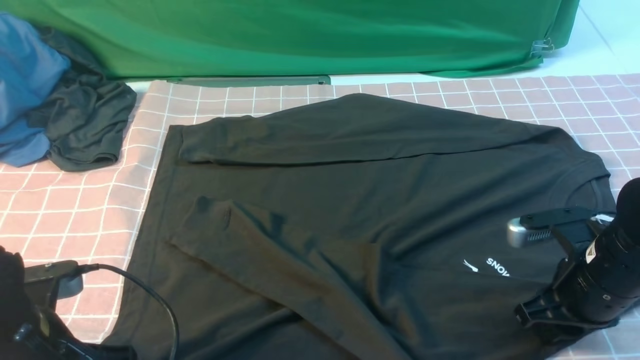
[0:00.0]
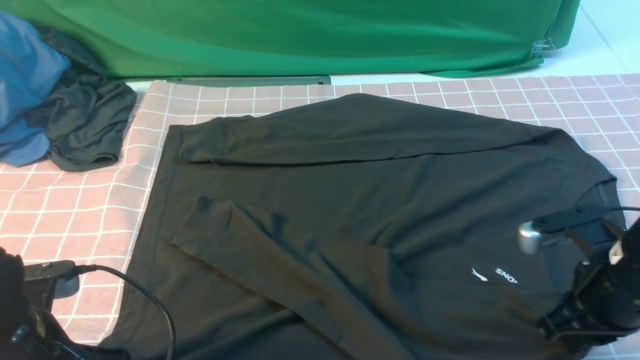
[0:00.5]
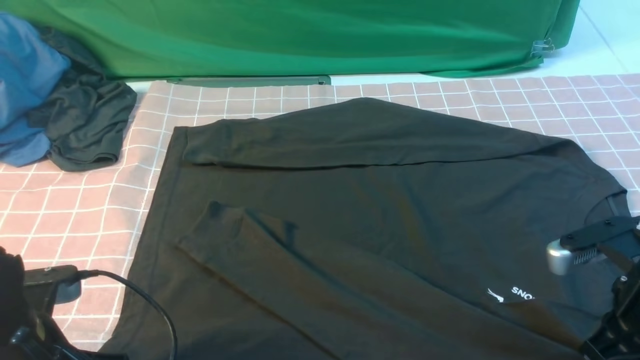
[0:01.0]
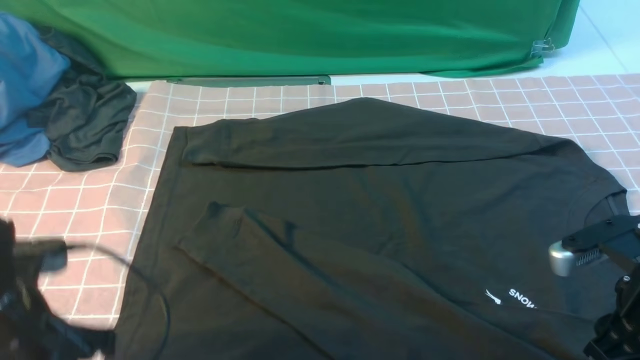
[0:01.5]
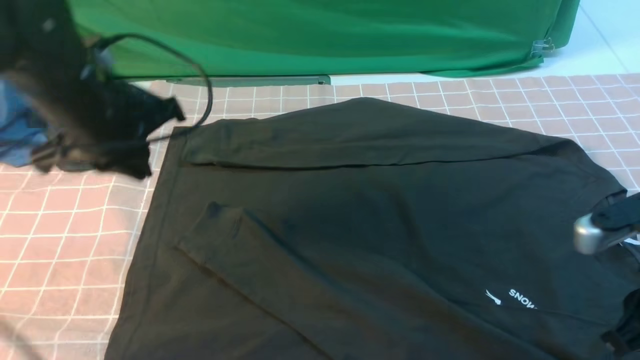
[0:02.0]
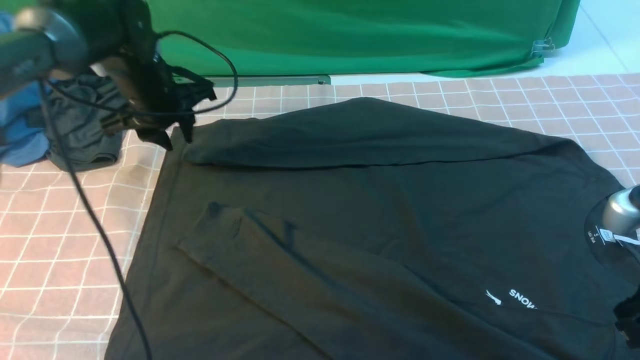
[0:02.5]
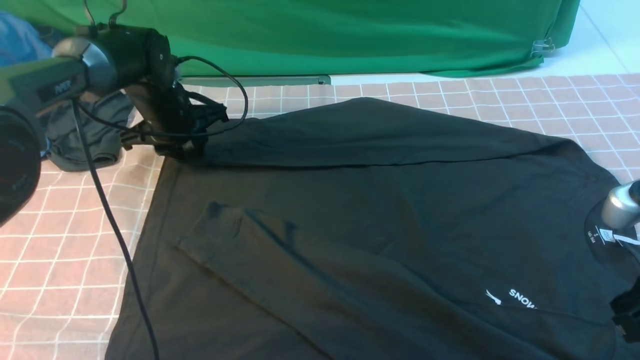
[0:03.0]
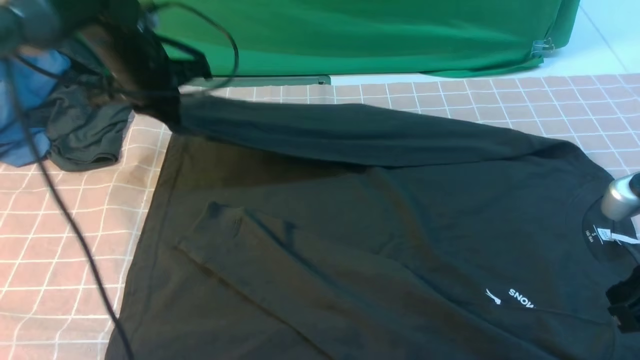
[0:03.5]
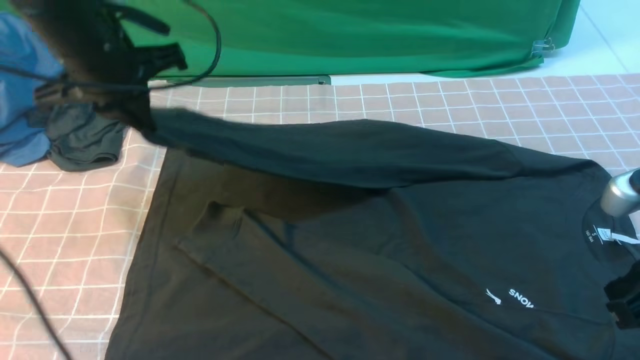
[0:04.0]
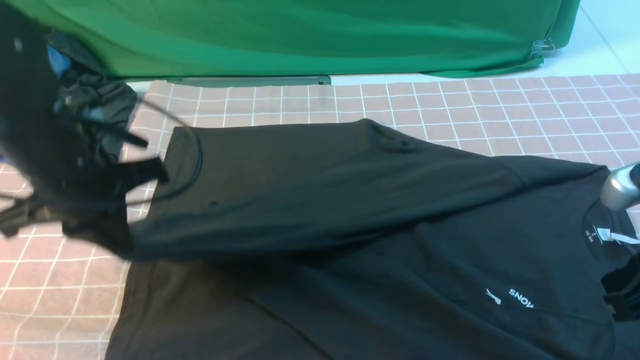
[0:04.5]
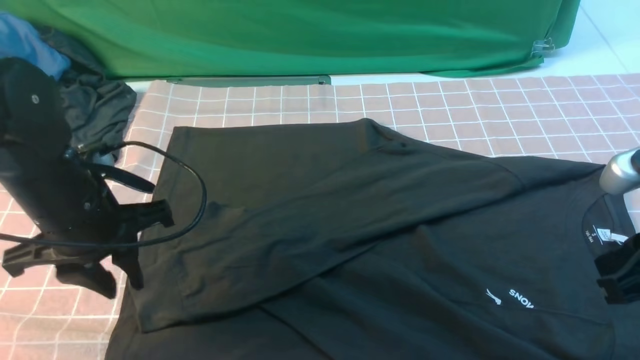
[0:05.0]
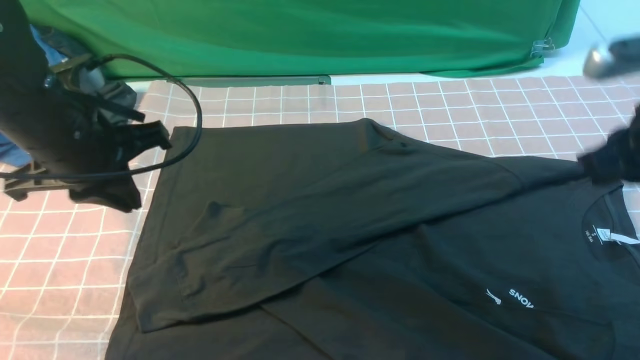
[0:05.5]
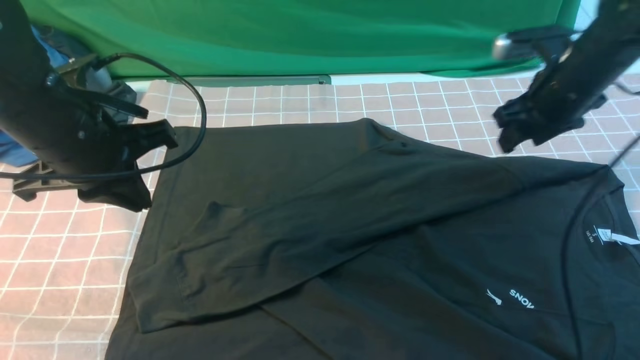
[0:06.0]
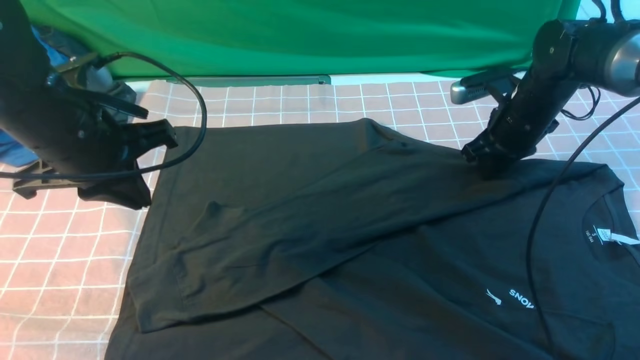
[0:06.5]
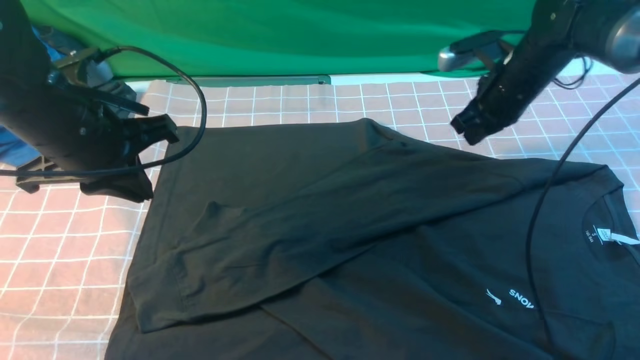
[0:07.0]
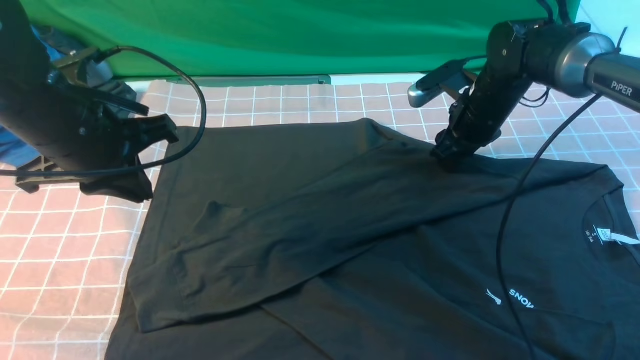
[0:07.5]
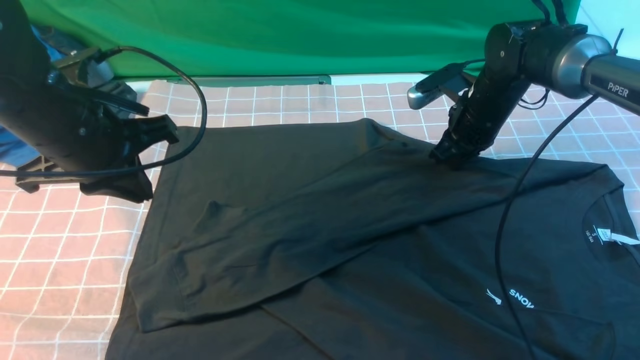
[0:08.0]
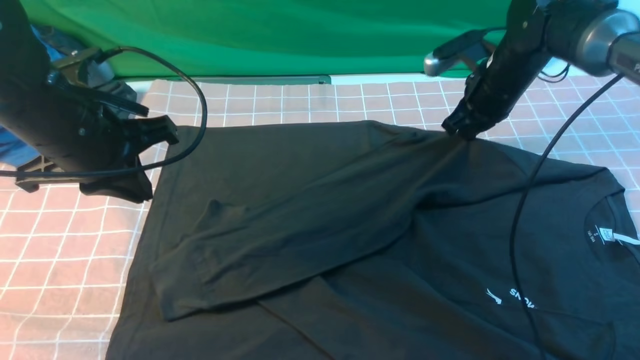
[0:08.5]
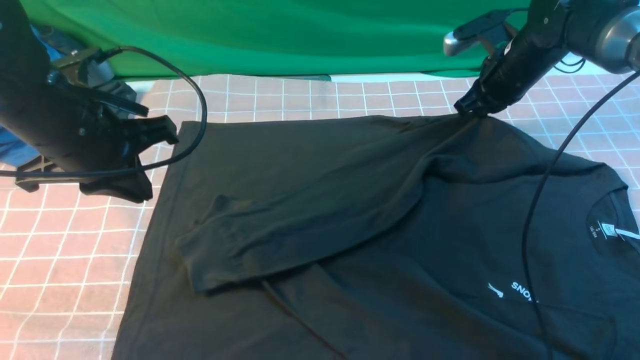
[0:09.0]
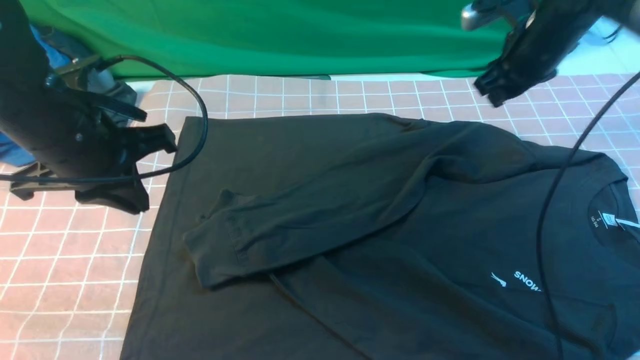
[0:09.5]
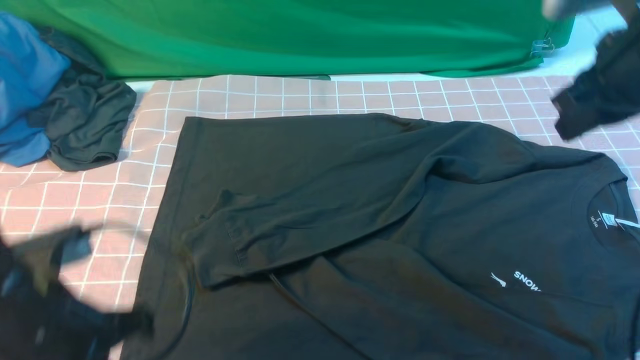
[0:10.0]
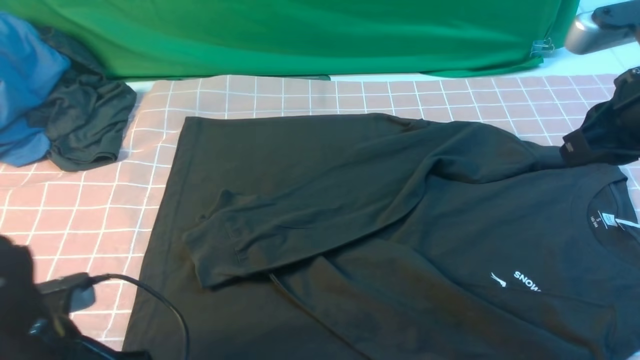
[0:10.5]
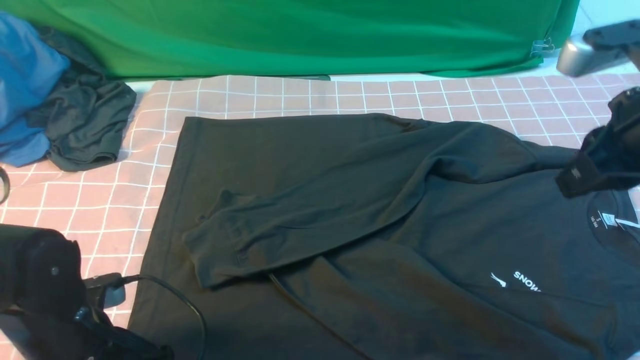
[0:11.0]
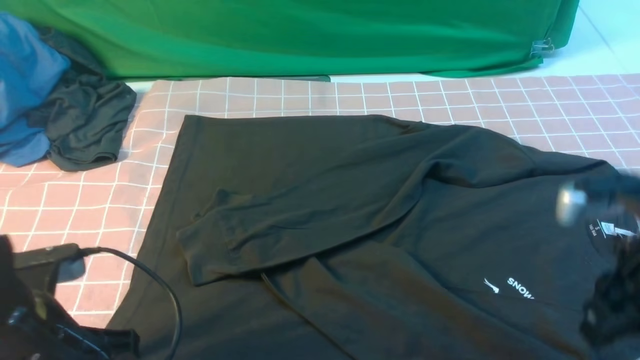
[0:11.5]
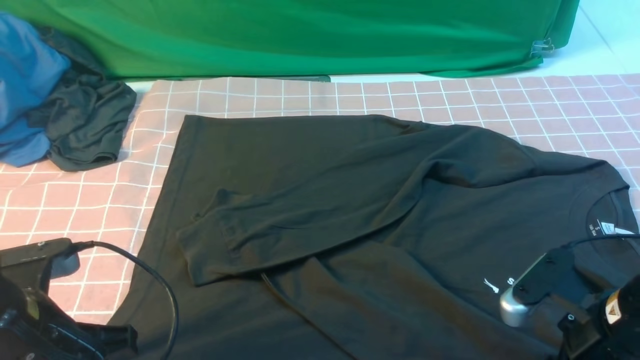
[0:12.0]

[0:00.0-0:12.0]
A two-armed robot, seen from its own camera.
Step, 0:00.0 to 0:03.0: use the left arm to clamp the cuff farthest from it.
Step, 0:03.5 to 0:04.5: use the left arm to drag and drop the cuff onto the cuff closest to the left arm.
0:00.0 to 0:02.0: The left gripper travels forward and upward by roughly 20 cm, and opens and closes again. Meanwhile the right gripper travels upward and backward by some 10 cm, and closes.
0:02.0 to 0:04.0: The left gripper goes downward and returns, about 10 cm each way, and opens, then closes once more.
0:04.0 to 0:06.0: The left gripper moves backward, about 5 cm, and opens, then closes once more. Meanwhile the right gripper goes roughly 25 cm forward, and opens.
0:06.0 to 0:08.0: The right gripper is displaced downward and to the left by some 10 cm, and closes its fingers.
0:08.0 to 0:10.0: The right gripper is displaced upward and backward by roughly 25 cm, while the left gripper is displaced backward and downward by some 15 cm.
0:10.0 to 0:12.0: The right gripper goes about 20 cm downward and backward, and opens, while the left gripper goes downward and returns, about 10 cm each way, and opens, then closes again.

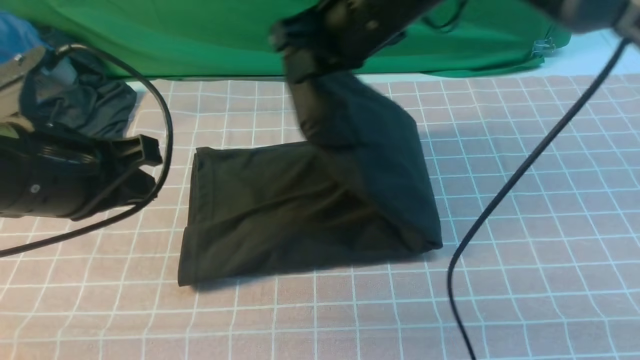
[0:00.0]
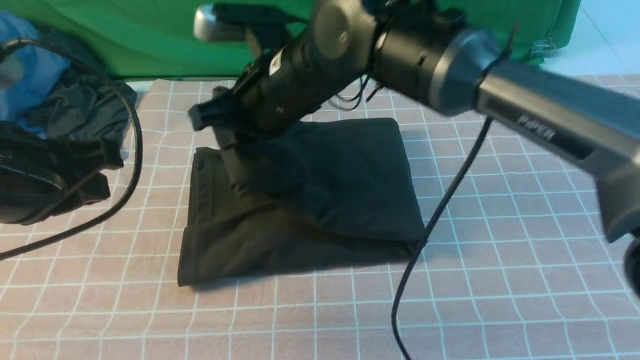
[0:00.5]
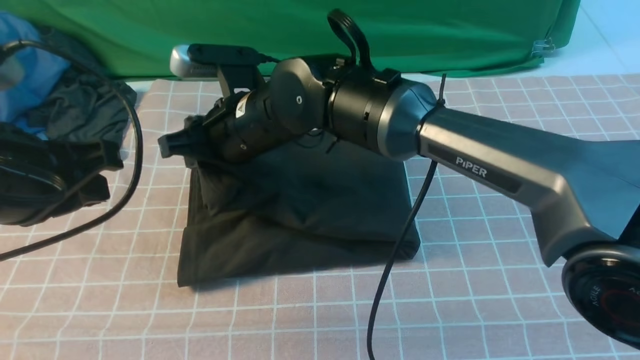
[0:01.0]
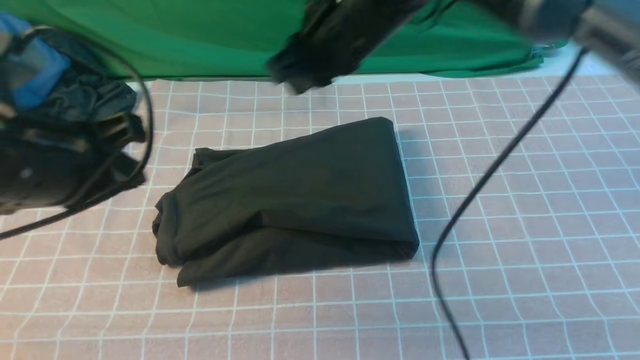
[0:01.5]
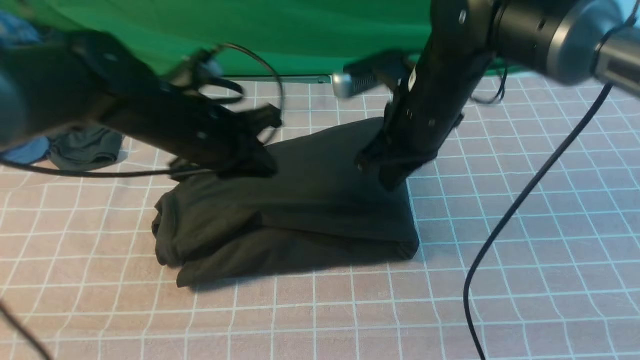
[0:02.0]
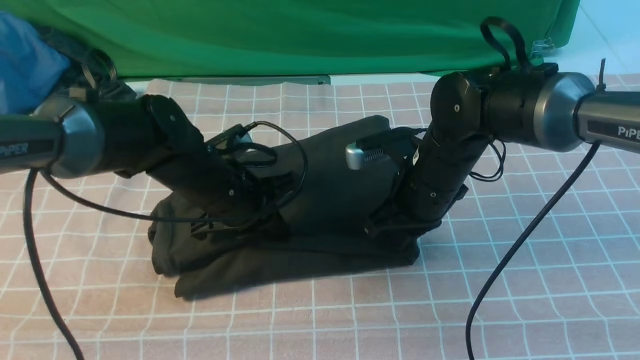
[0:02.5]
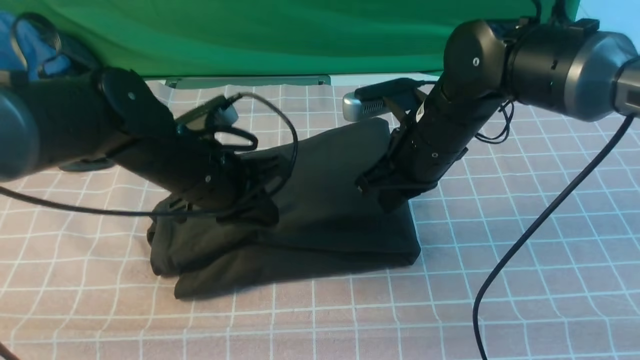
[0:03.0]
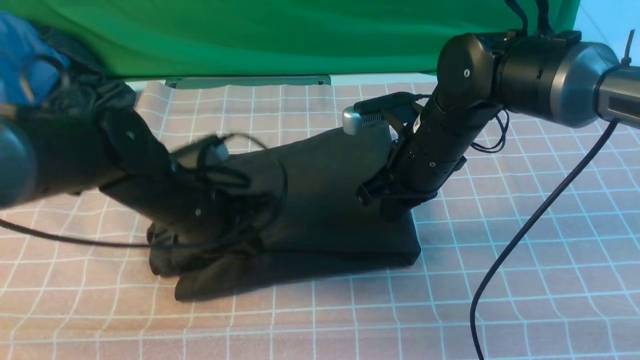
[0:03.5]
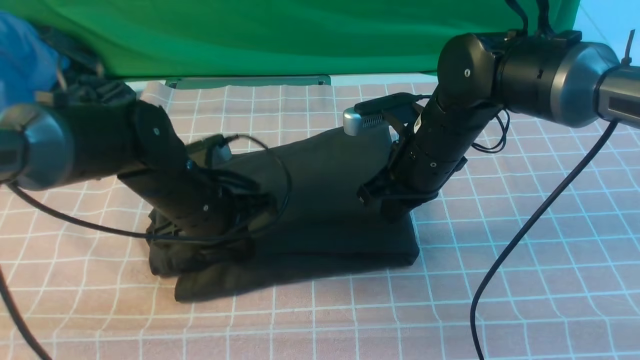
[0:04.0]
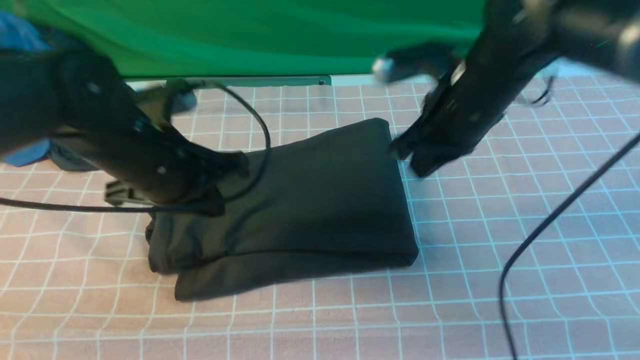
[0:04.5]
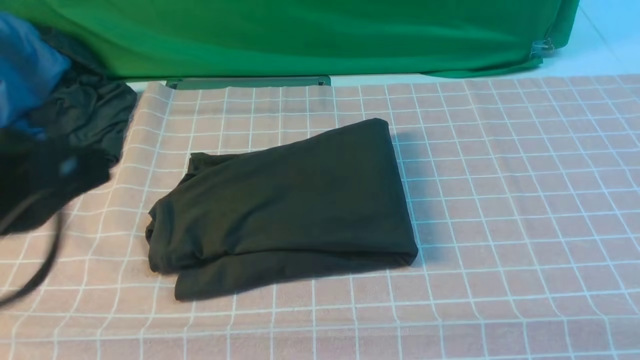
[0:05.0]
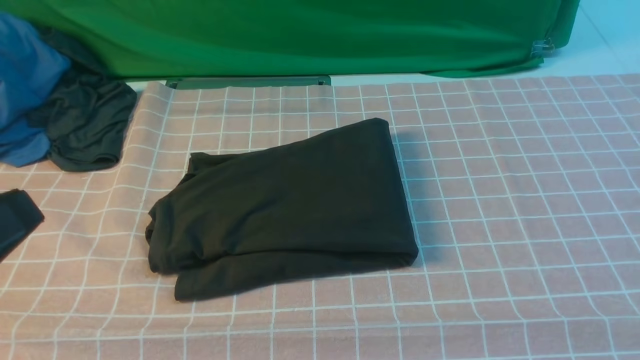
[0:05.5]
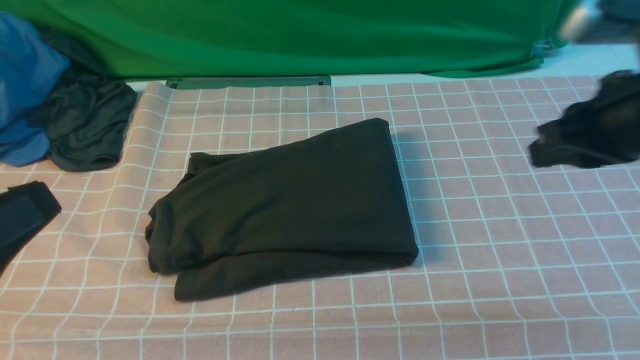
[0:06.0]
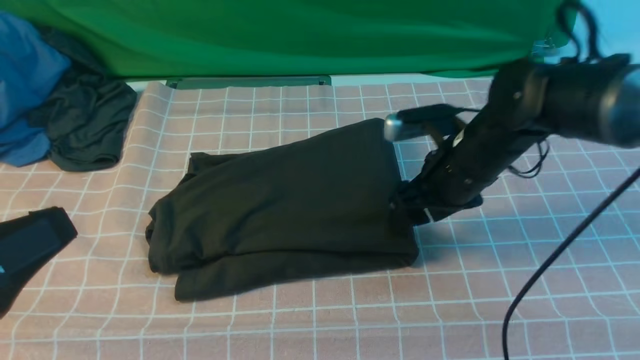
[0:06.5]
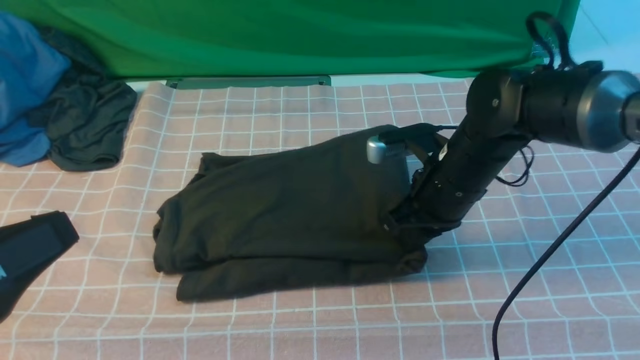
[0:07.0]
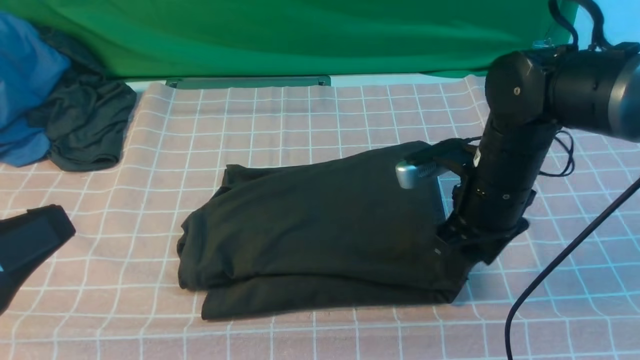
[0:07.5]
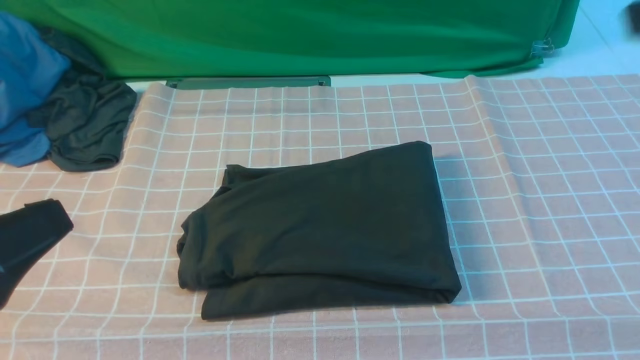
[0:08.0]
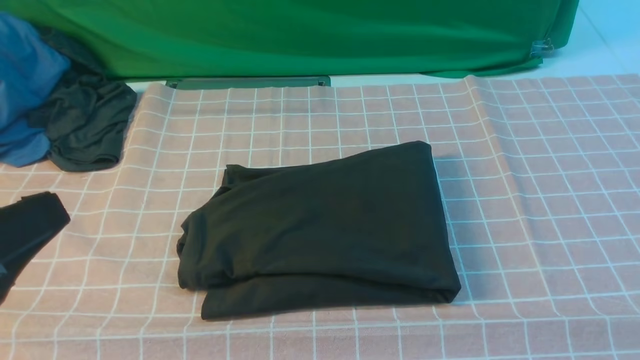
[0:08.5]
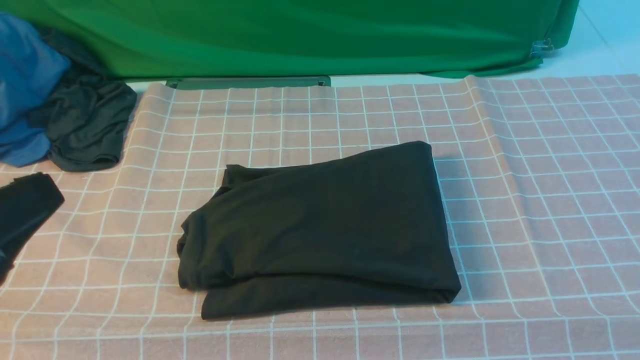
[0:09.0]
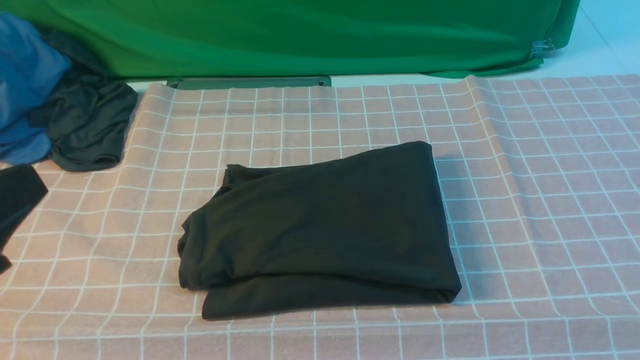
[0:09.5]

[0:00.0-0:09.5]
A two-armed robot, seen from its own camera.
0:00.0 to 0:02.0: The right gripper goes some 10 cm downward, moves about 10 cm to the left and comes back, and opens and closes again; the left gripper is displaced forward, downward and to the right by roughly 15 cm.
0:04.0 to 0:05.5: The right gripper travels backward, upward and to the right by about 35 cm; the left gripper shifts about 30 cm backward and upward.
0:05.5 to 0:07.5: The right gripper shifts some 30 cm downward, forward and to the left, and opens up.
0:07.5 to 0:09.5: The right gripper shifts approximately 30 cm backward and to the right, and closes its fingers.
